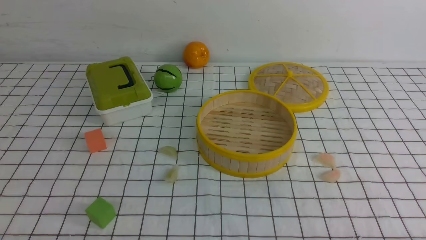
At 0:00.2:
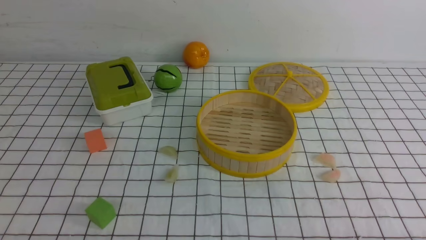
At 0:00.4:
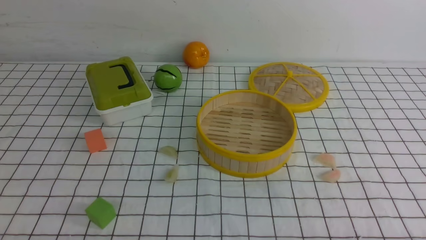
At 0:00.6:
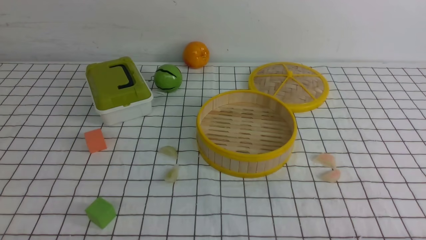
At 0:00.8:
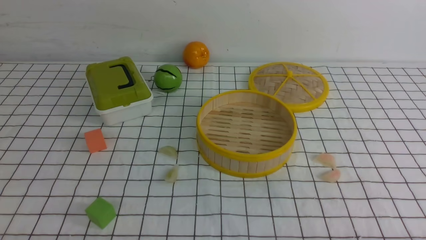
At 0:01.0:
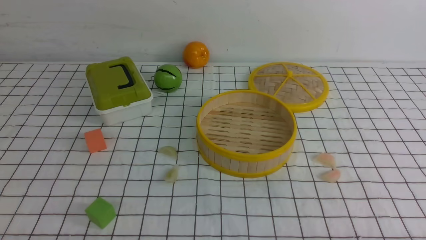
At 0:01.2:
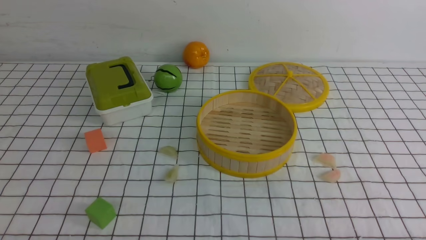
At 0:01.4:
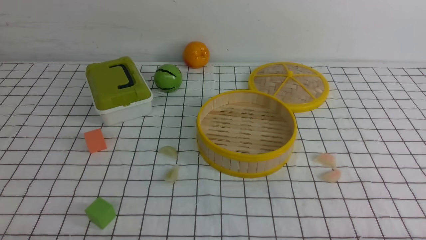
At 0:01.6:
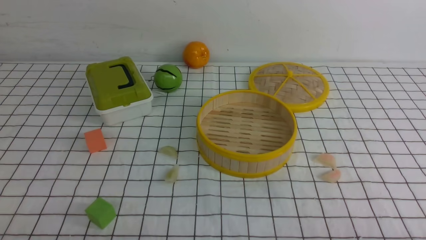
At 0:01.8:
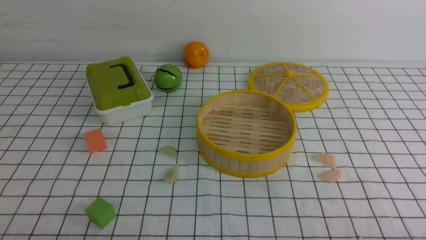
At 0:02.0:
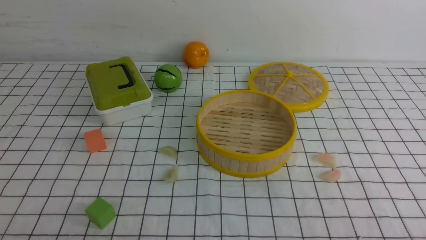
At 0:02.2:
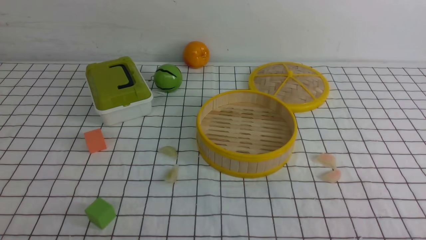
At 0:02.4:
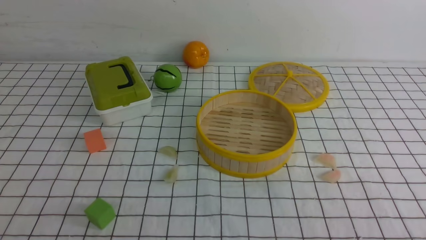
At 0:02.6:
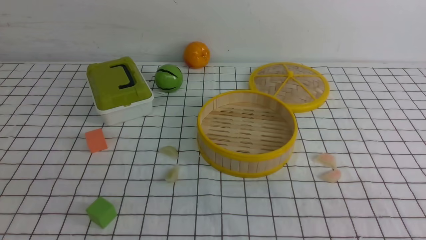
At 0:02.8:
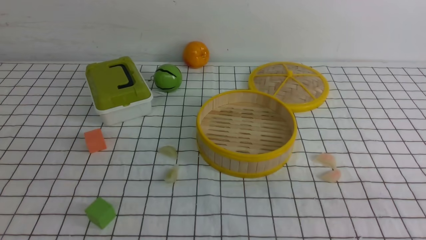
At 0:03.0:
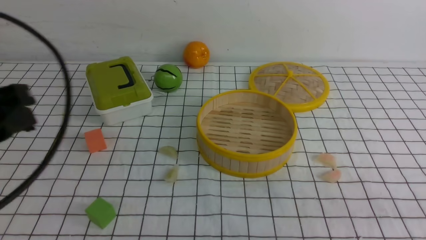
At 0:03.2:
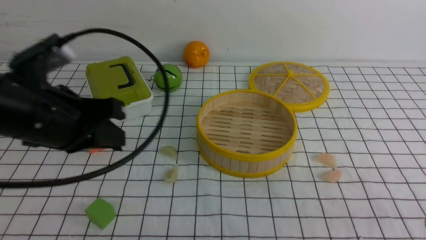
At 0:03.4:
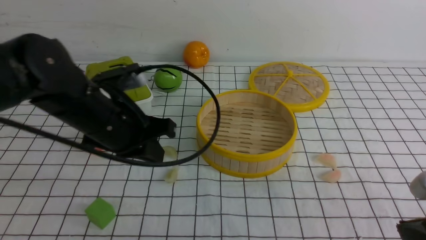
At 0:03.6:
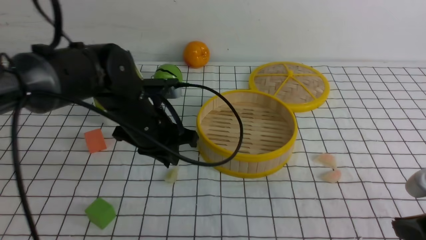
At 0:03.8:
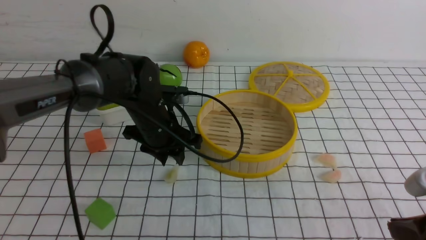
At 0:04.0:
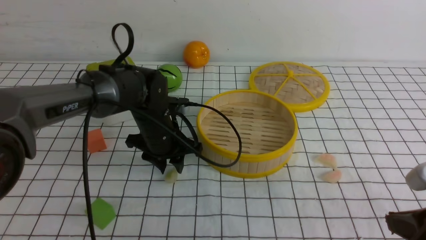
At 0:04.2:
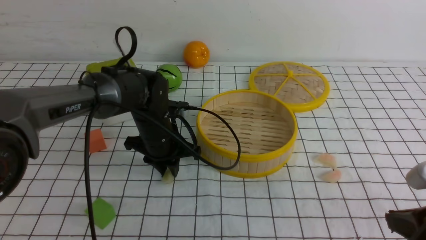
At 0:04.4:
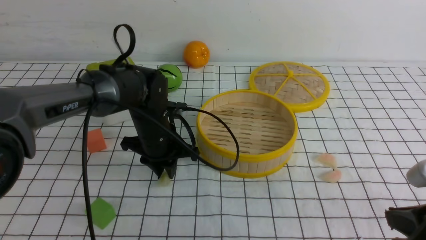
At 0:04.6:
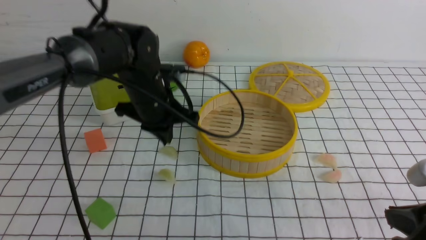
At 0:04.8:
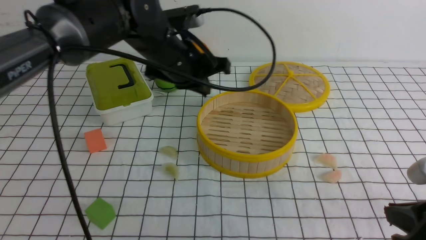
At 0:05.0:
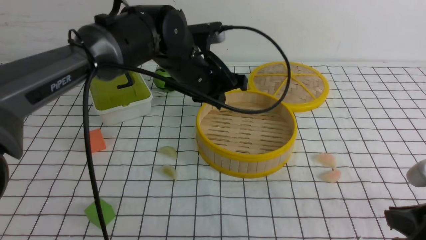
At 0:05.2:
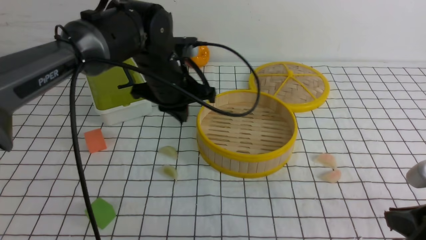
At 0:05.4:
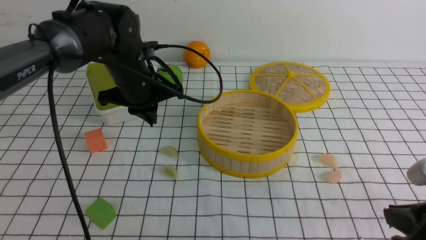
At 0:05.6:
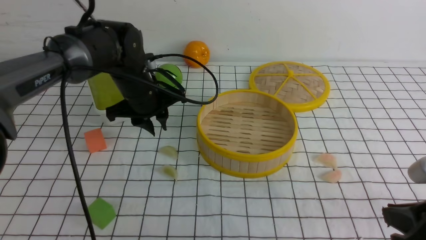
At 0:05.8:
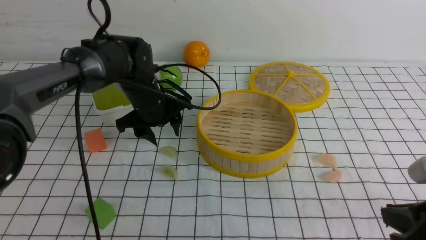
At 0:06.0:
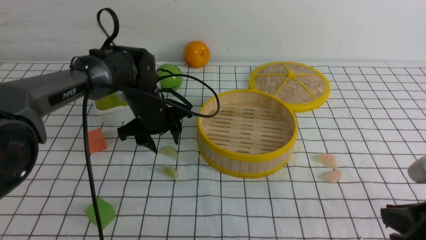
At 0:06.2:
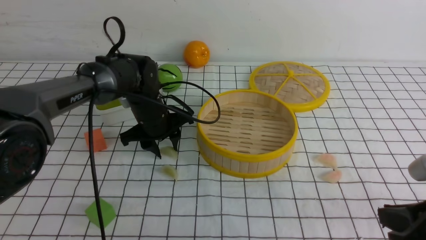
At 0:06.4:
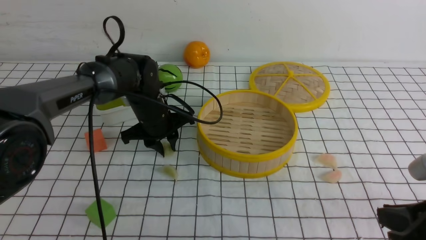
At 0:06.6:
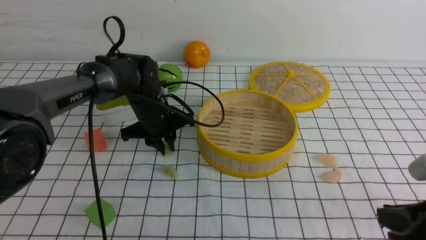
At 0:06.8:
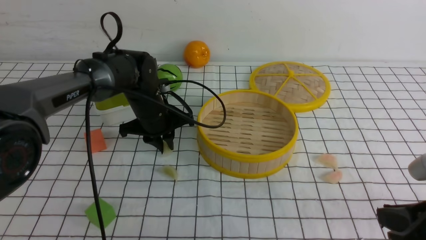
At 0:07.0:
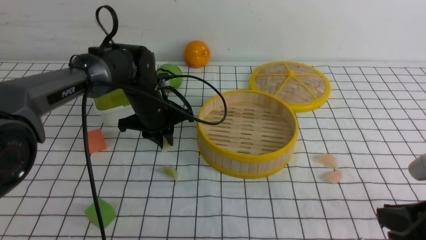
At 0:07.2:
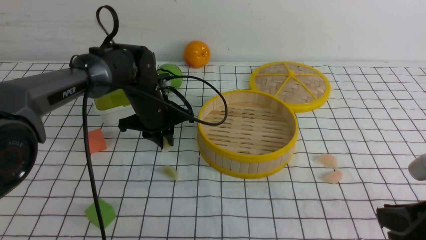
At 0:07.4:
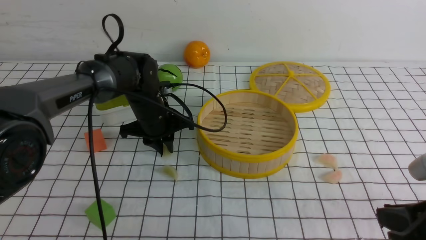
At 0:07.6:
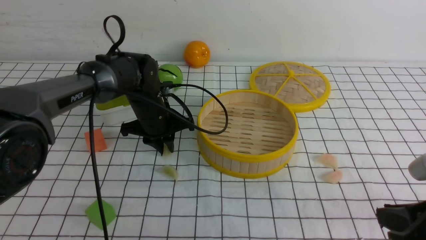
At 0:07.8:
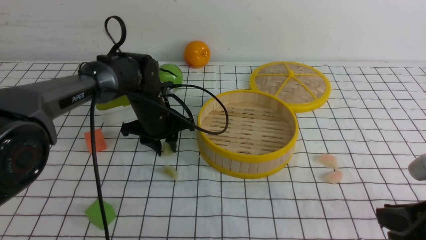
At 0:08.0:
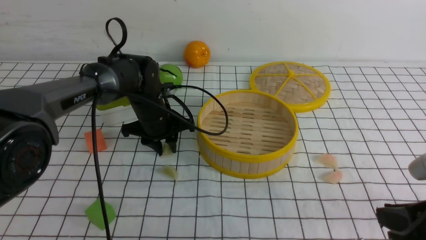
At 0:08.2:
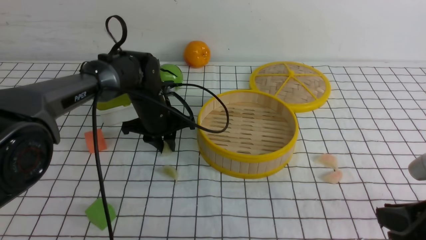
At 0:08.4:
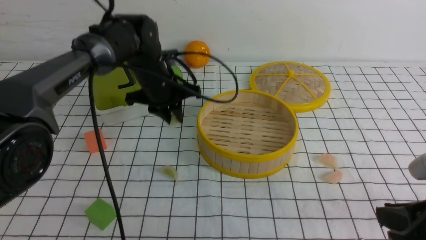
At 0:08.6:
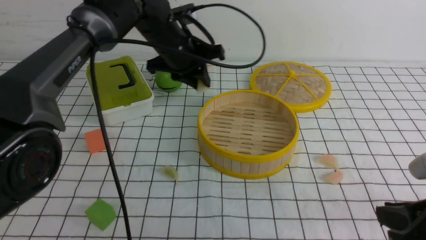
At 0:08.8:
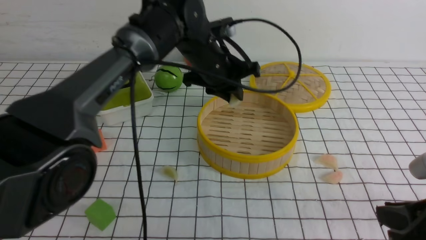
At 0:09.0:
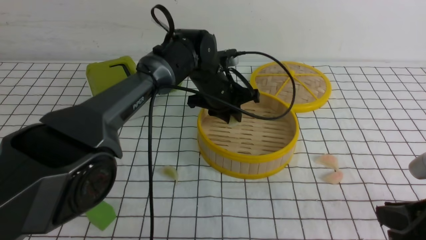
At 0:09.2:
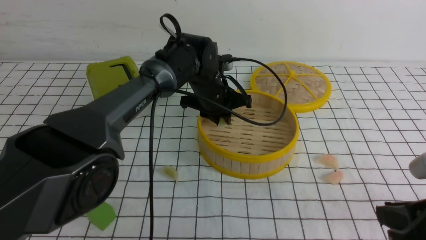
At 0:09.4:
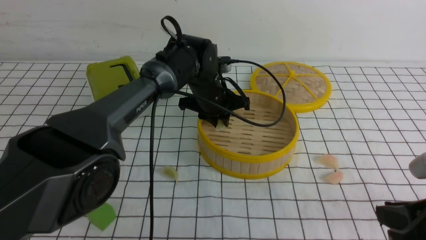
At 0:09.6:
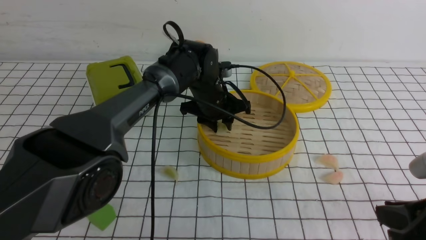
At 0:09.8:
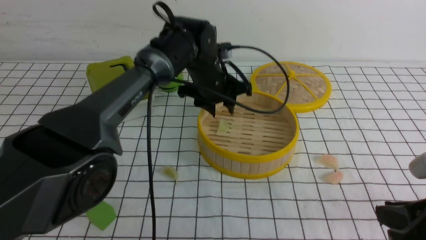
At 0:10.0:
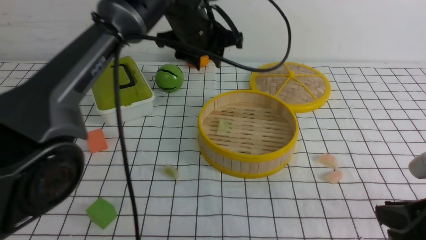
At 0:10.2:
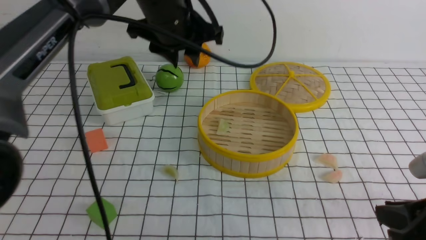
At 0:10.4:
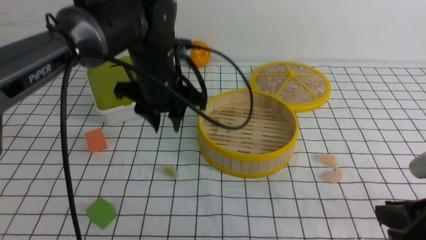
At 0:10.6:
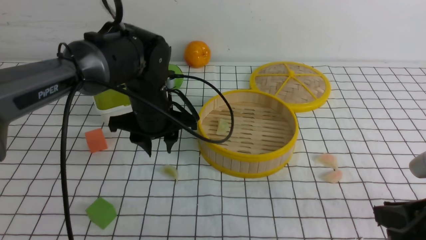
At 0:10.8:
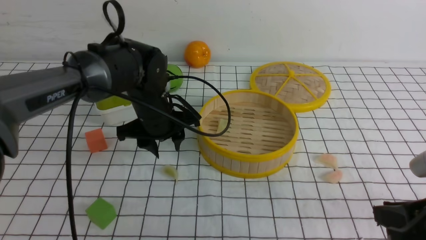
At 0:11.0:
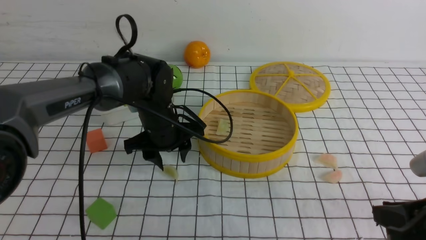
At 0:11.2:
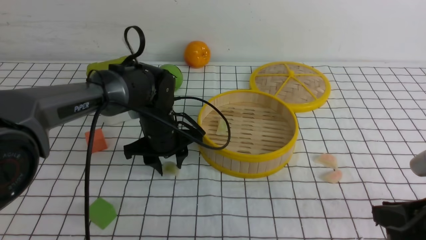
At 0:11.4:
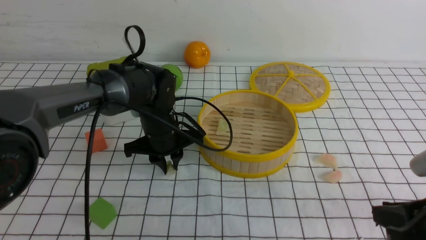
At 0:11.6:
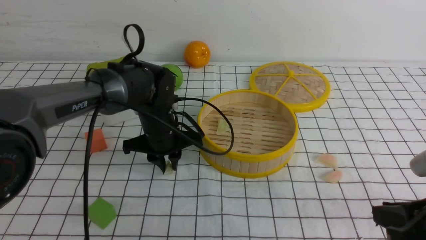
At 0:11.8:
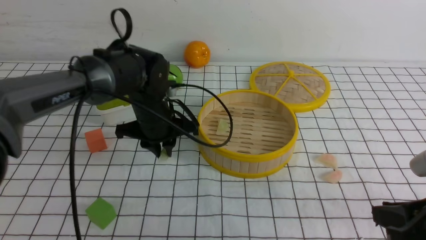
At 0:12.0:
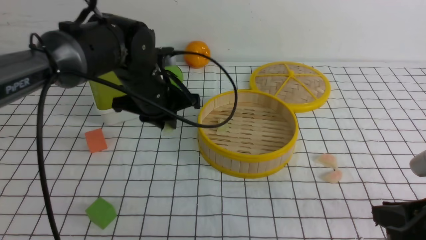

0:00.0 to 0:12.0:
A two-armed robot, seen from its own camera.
Task of the whole recording: put the dumplings into the steamer on the table with the white tablecloth.
Step, 0:00.0 to 0:08.0: use the left arm to grab a dumpling.
Step, 0:08.2 to 0:09.8: use the left arm to put the dumpling into the steamer.
Step, 0:10.0 to 0:11.4: use the left arm to grab a dumpling.
0:01.6 to 0:03.0: The left gripper heads upward and forward, covering roughly 20 cm.
0:03.0 to 0:04.4: The left gripper goes some 30 cm forward, downward and to the right, and opens, then closes once more, while the right gripper shifts by some 5 cm.
0:04.4 to 0:06.0: The left gripper moves about 10 cm upward and comes back, and opens up.
0:06.0 to 0:07.6: The left gripper closes its fingers.
0:07.6 to 0:09.0: The left gripper moves to the right and upward, roughly 10 cm.
0:09.0 to 0:10.4: The left gripper goes some 10 cm to the left, backward and upward, and opens its fingers.
0:10.4 to 0:12.0: The left gripper goes downward and returns, approximately 10 cm each way, and closes up.

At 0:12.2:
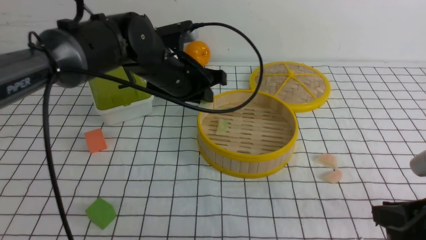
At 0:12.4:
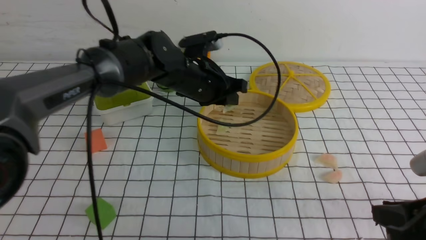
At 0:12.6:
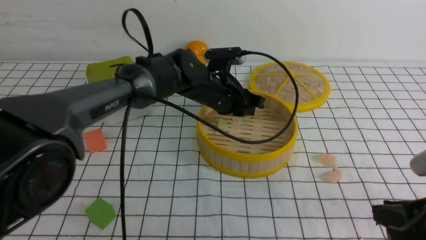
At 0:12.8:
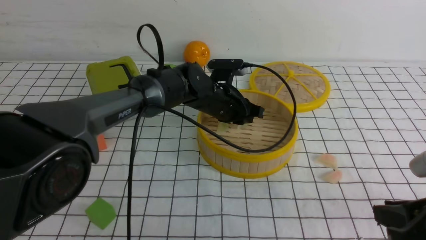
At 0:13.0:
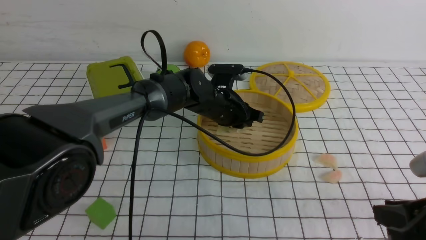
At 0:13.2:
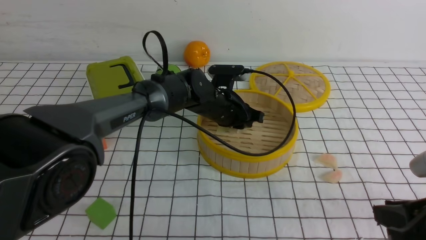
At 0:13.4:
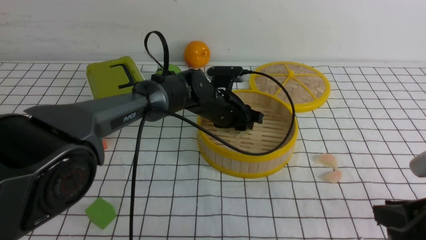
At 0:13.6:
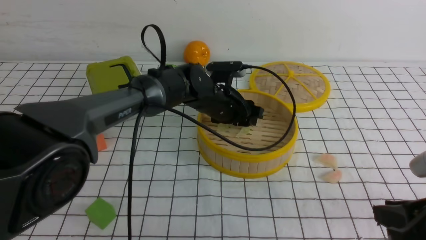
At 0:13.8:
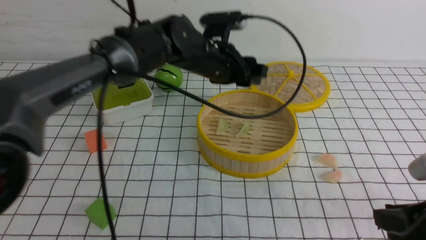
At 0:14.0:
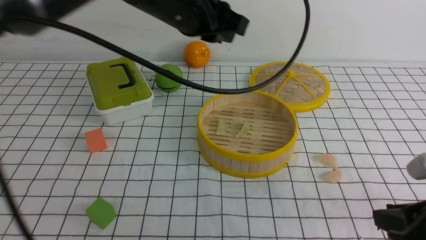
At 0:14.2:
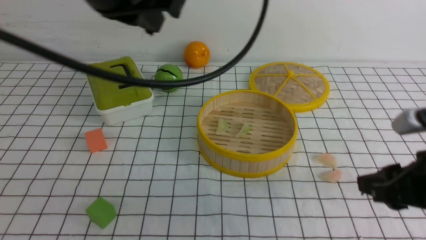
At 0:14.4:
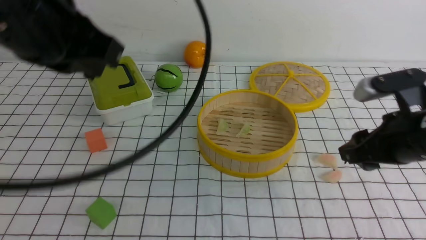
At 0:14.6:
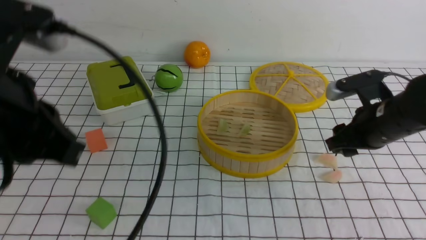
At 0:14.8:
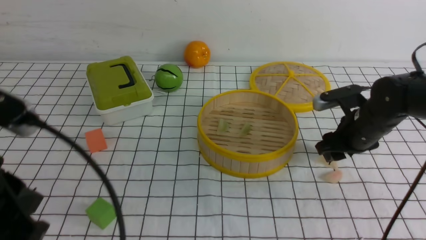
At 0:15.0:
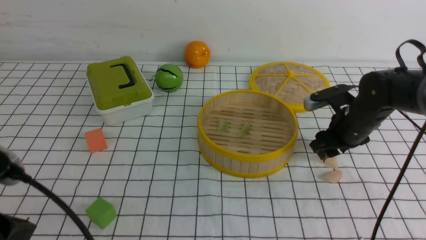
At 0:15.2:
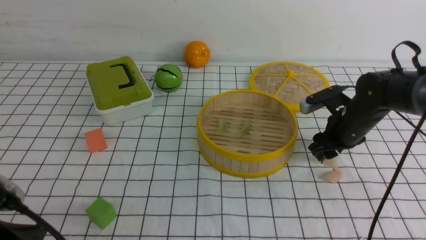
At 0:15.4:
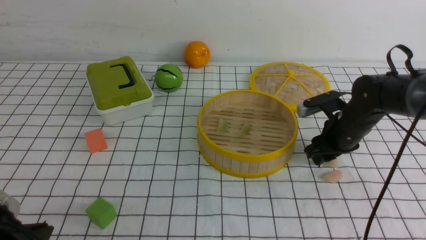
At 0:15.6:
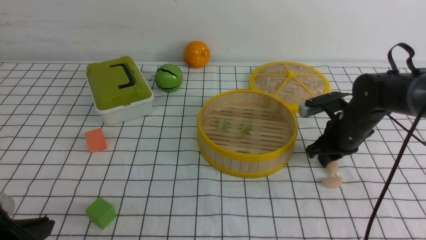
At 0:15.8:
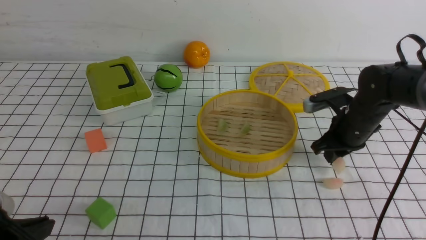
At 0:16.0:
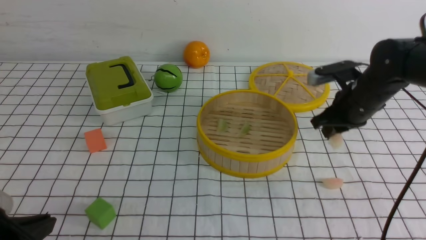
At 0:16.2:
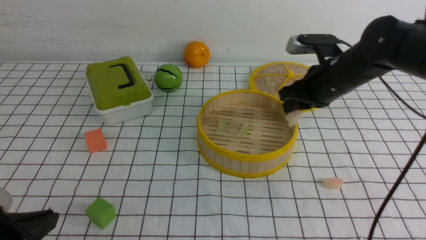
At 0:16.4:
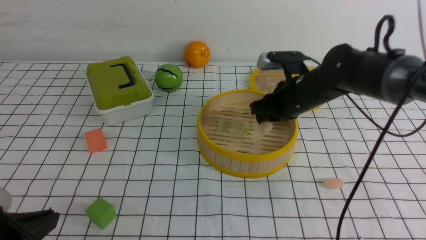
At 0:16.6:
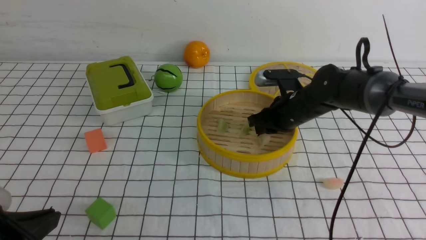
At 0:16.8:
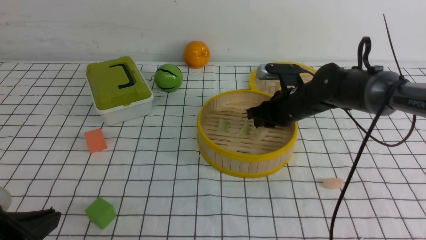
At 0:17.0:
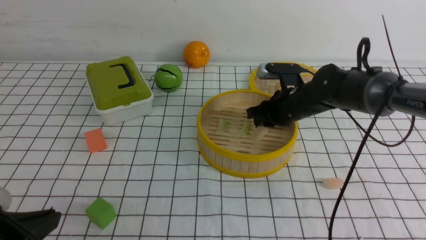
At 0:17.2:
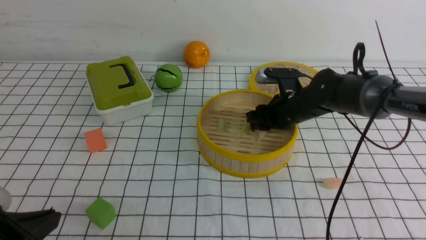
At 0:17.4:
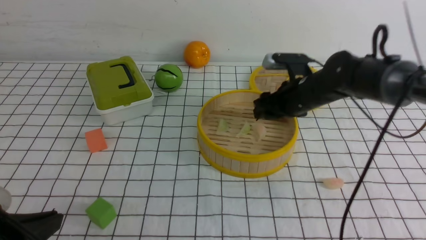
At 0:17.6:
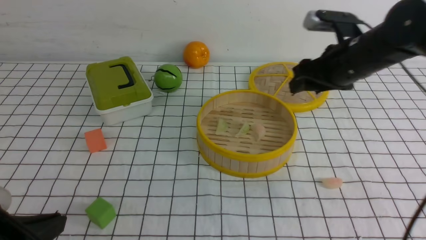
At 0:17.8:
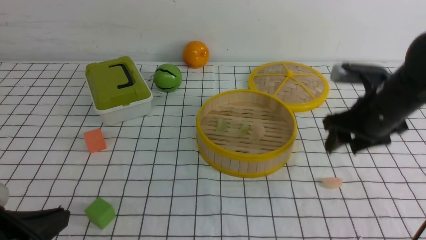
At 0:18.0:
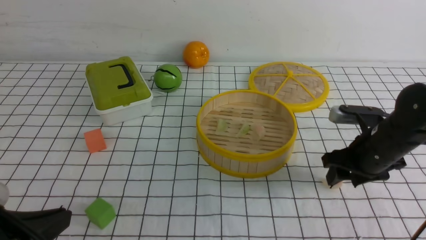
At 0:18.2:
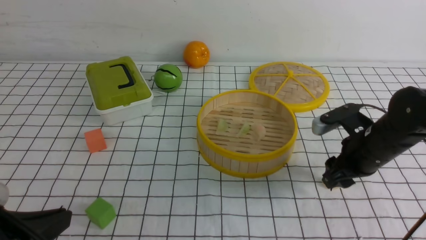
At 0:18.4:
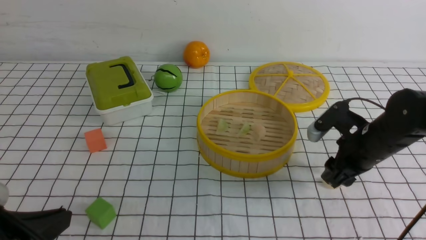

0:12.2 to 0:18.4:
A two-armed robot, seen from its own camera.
Task of the whole recording: put the dumplings into the steamer on the table with the white tablecloth.
Step, 0:12.2 to 0:13.6: use the left arm to put the dumpling into the steamer.
Step, 0:14.0 to 0:15.4: use the right arm to grab a dumpling.
Step, 0:15.8 to 0:17.4: use the right arm to put the dumpling into the steamer.
0:12.2 to 0:13.8: The left gripper heads upward, covering about 5 cm, and opens its fingers.
0:13.8 to 0:15.4: The right gripper moves forward, some 25 cm. The left gripper shifts approximately 35 cm backward and to the left, and closes up.
0:15.4 to 0:16.8: The right gripper is displaced to the left by some 10 cm.
0:16.8 to 0:18.4: The right gripper moves backward and to the right, some 15 cm, and opens up.
